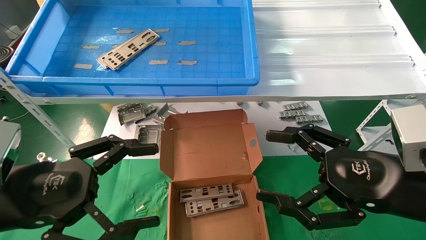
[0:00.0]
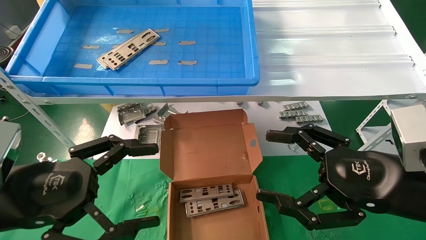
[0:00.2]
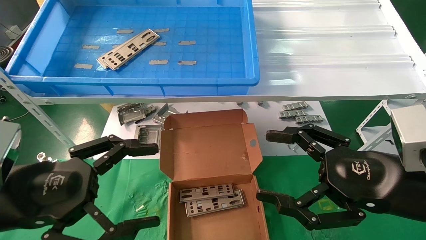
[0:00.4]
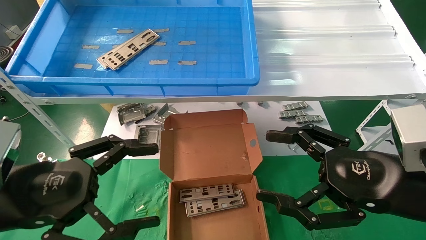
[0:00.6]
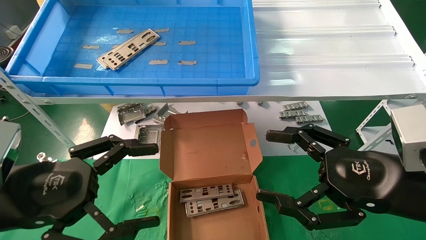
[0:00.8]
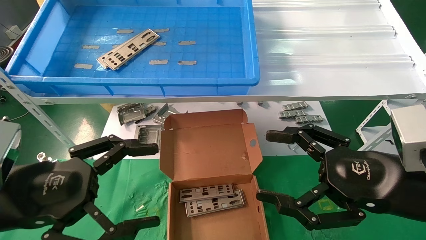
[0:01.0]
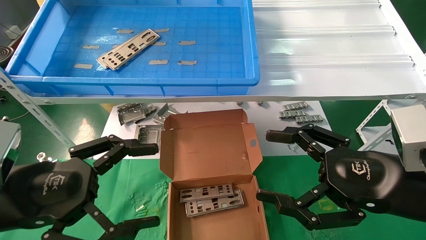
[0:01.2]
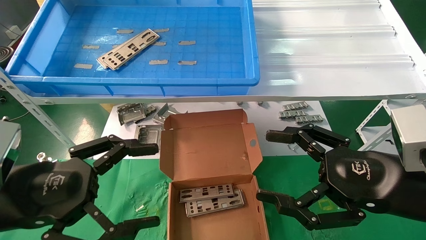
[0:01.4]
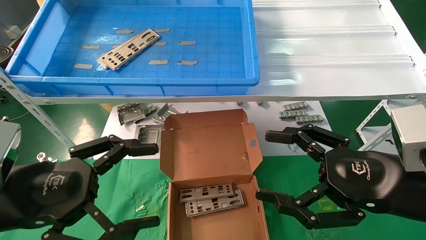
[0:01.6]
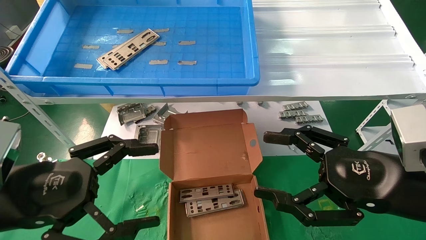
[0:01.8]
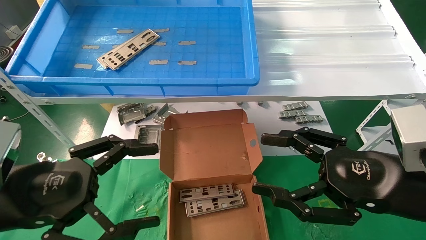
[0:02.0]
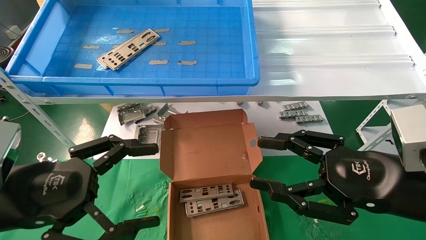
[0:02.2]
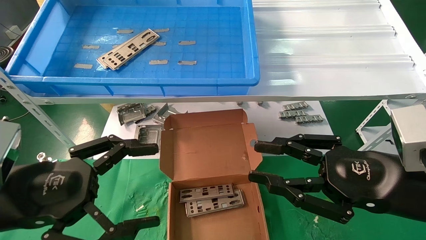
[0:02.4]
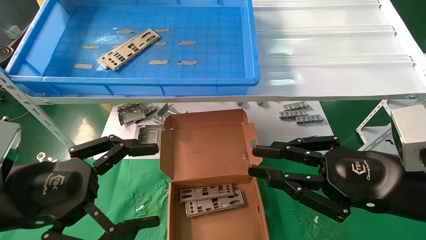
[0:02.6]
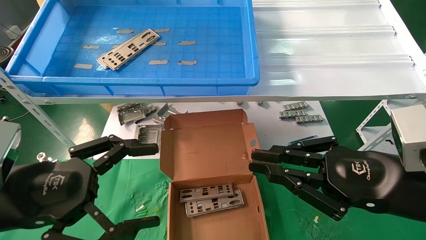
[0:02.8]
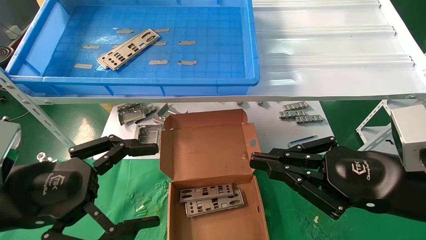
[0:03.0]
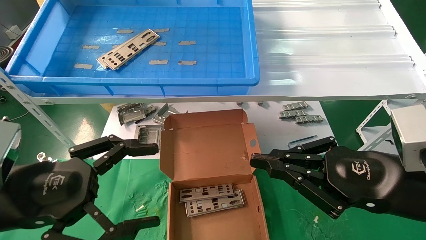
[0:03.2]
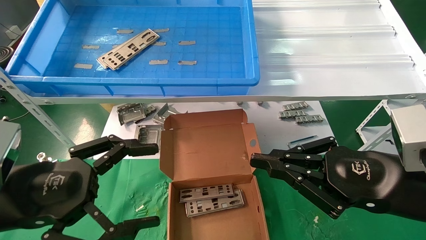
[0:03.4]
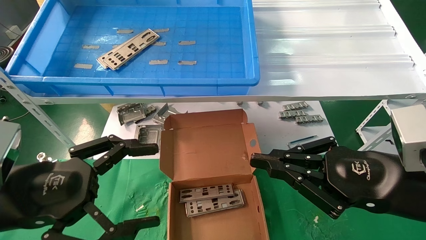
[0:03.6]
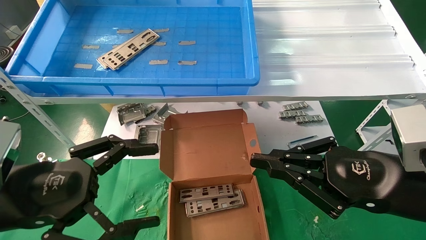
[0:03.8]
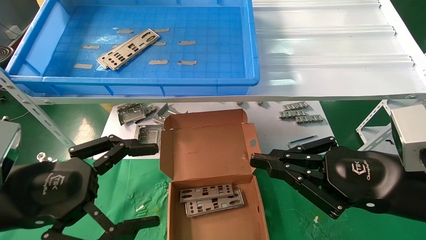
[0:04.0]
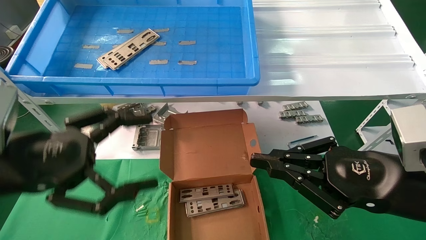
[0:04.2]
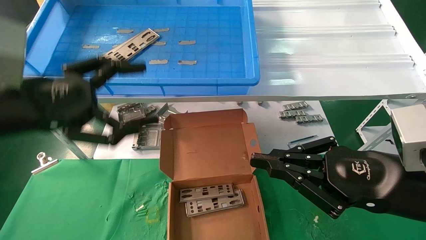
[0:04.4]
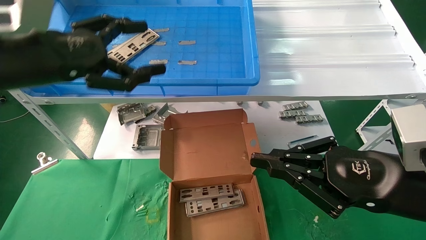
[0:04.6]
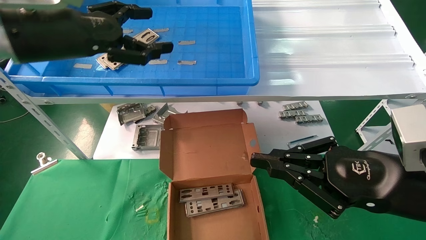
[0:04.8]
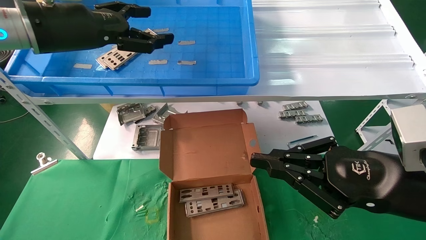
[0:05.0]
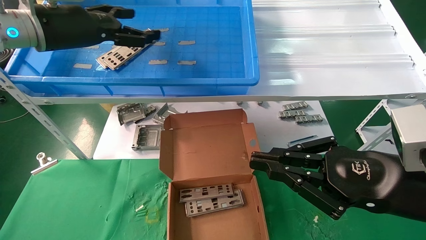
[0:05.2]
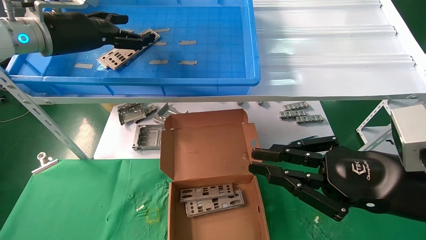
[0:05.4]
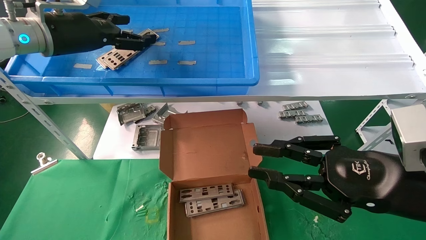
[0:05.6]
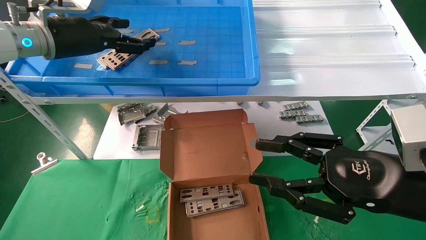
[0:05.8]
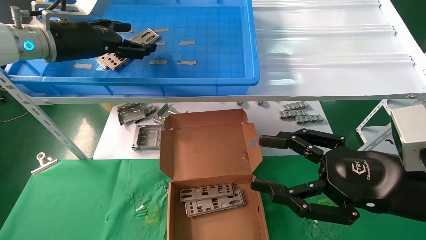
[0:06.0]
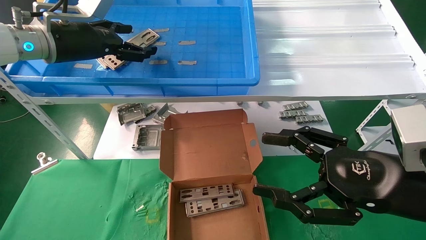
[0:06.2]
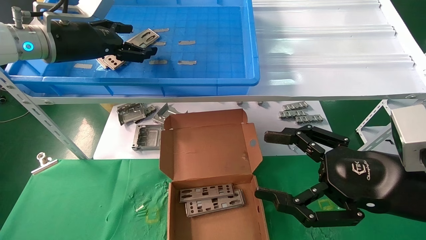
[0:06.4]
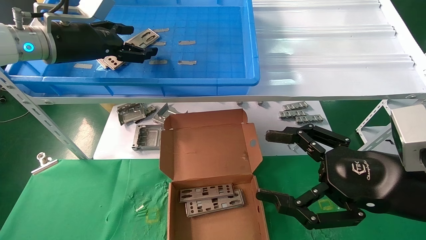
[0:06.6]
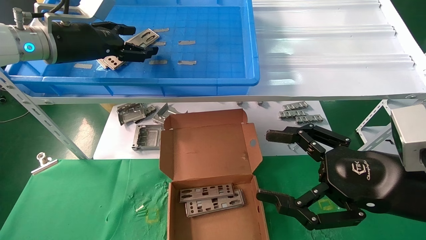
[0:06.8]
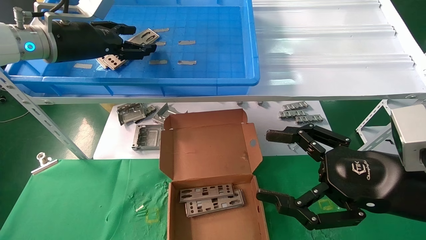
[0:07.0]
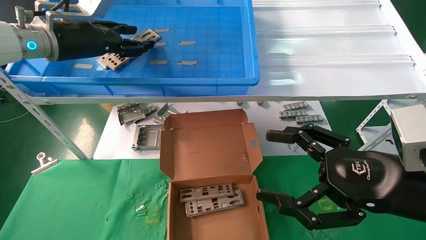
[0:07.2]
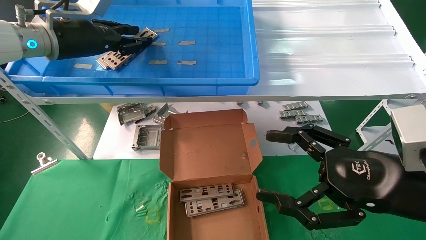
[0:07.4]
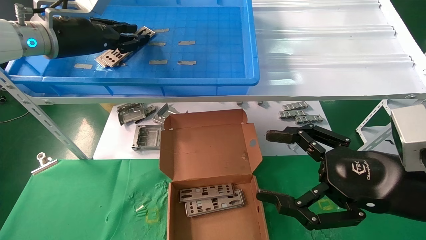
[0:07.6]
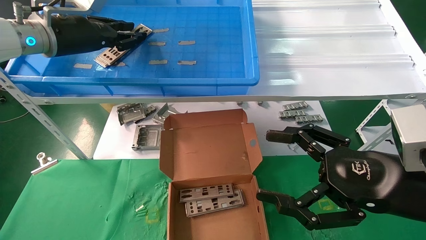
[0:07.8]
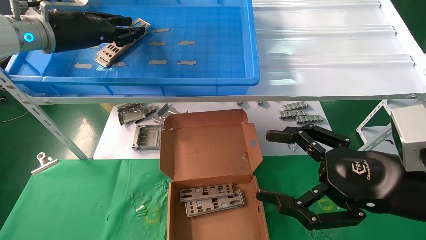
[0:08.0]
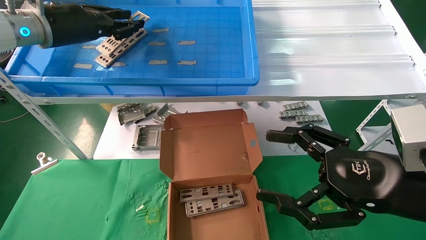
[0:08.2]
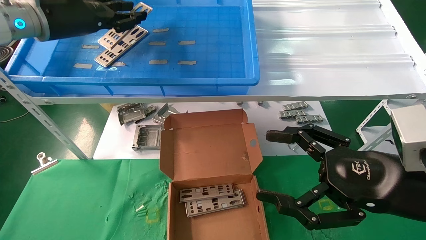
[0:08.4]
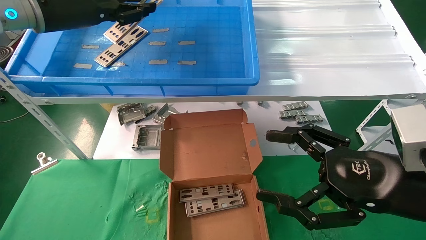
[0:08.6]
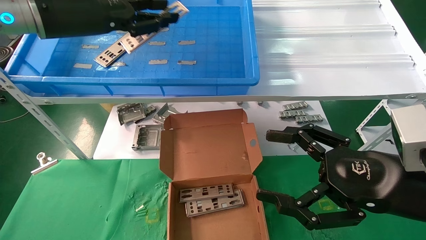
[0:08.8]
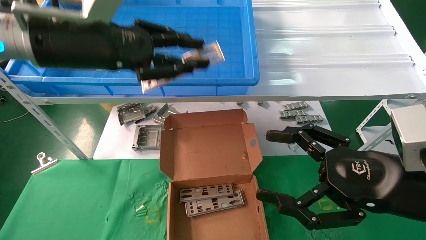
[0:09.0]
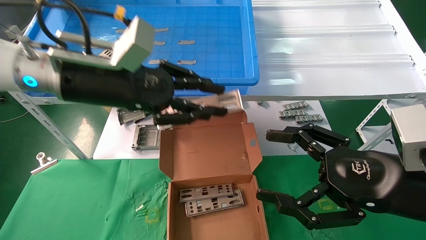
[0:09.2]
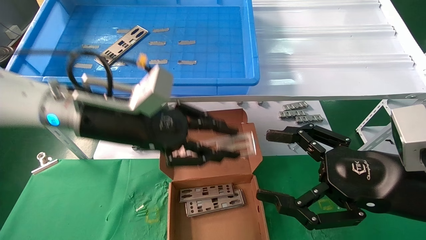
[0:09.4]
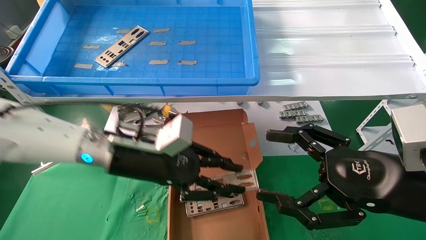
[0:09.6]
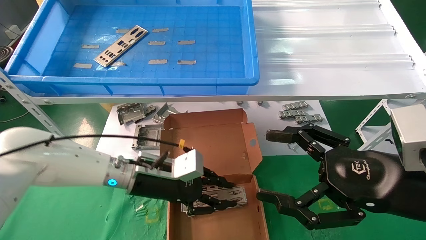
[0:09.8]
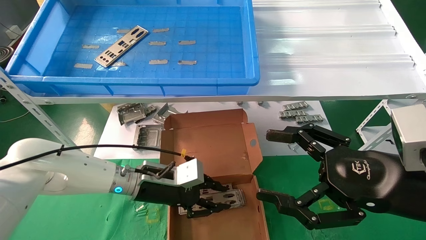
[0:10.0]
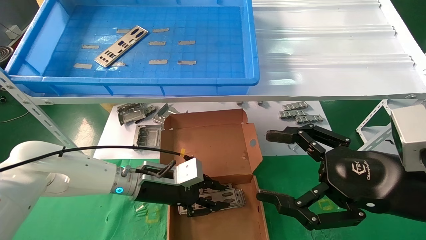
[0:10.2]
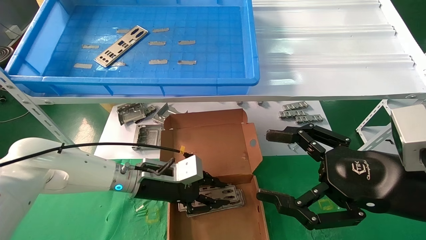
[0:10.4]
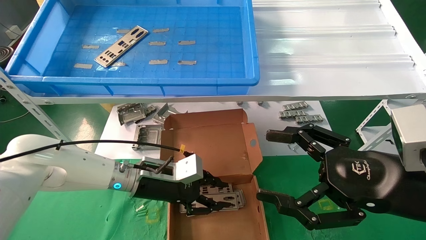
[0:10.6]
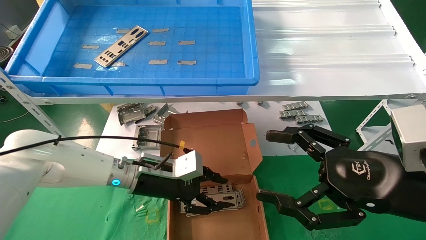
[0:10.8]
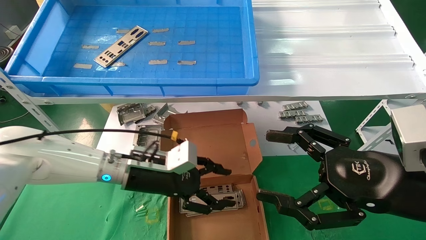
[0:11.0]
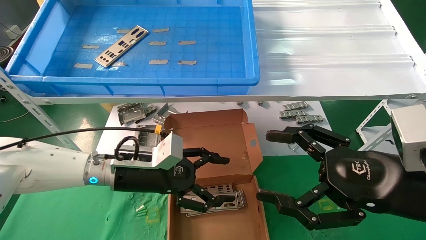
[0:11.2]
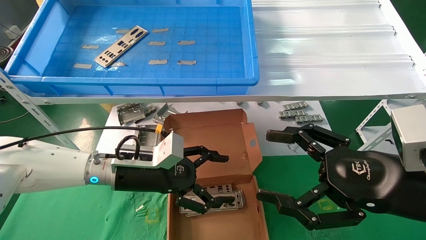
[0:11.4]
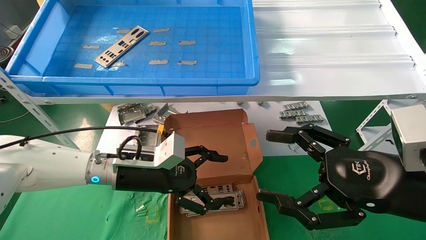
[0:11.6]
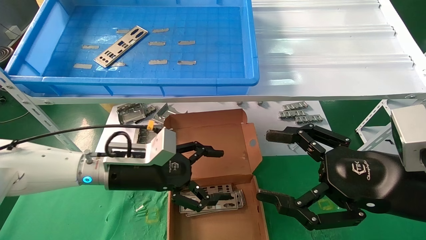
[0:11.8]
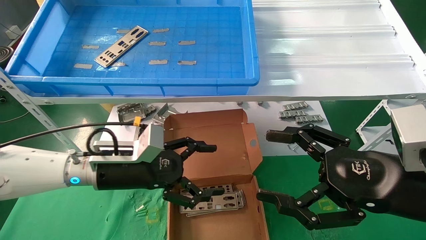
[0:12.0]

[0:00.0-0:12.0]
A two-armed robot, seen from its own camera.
Task of the whole recording: pick up the parts on the tray and put them in the cardboard box.
Step, 0:04.4 to 0:07.6: Pick up the IO bracket from the container box.
Step, 0:07.8 to 0:10.6: Place the IO bracket into the ingredient slot.
0:00.0 to 0:01.6: Both grippers stay put.
0:01.6 to 0:03.0: The right gripper closes.
0:03.0 to 0:04.4: The left gripper is displaced upward and forward by about 10 cm.
0:04.4 to 0:06.0: The left gripper is displaced forward and upward by about 20 cm, while the right gripper opens up.
0:06.0 to 0:07.6: The right gripper opens its fingers, while the left gripper closes its fingers.
0:07.6 to 0:09.0: The left gripper heads backward and to the right, covering about 10 cm.
0:09.0 to 0:10.4: The left gripper moves downward, about 25 cm.
0:10.4 to 0:12.0: The left gripper changes place by roughly 10 cm, and opens its fingers.

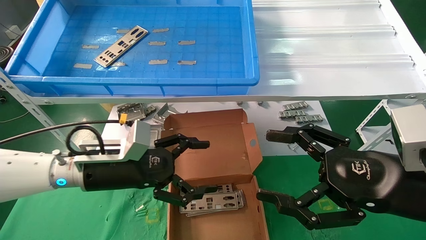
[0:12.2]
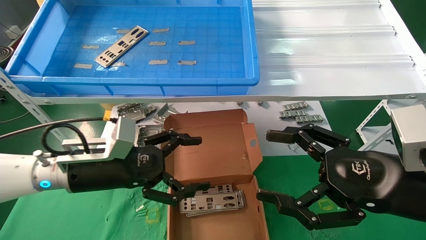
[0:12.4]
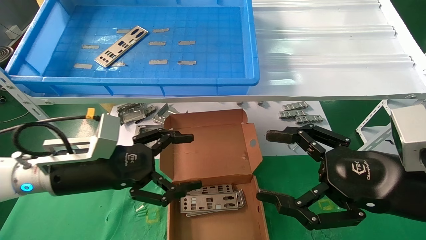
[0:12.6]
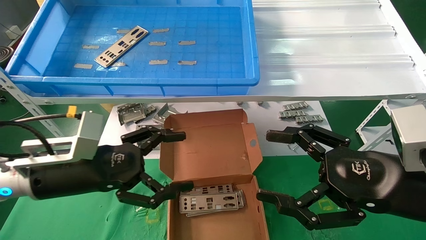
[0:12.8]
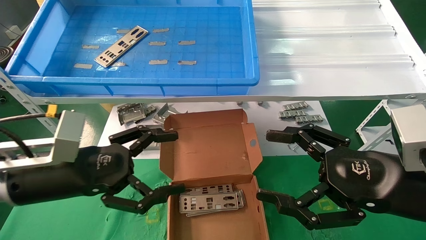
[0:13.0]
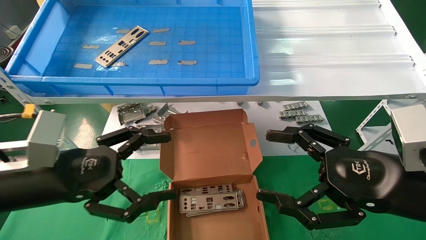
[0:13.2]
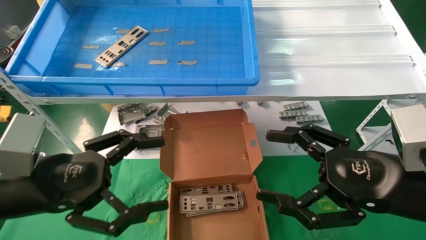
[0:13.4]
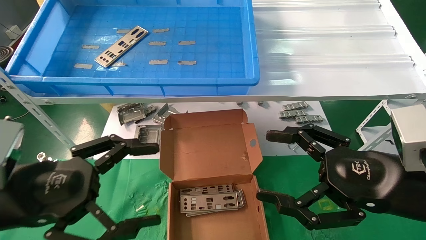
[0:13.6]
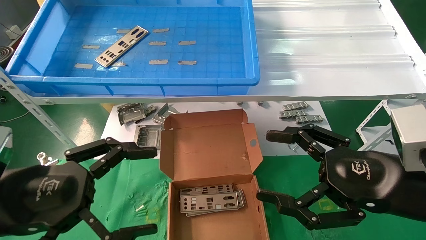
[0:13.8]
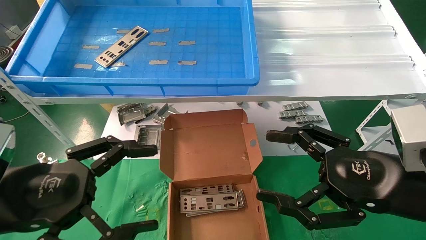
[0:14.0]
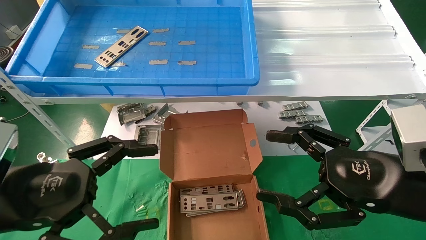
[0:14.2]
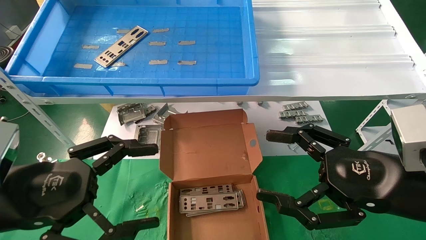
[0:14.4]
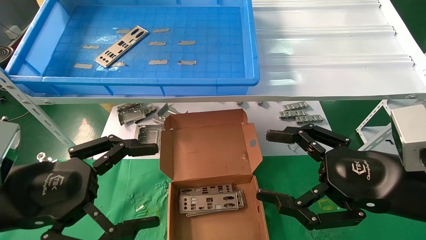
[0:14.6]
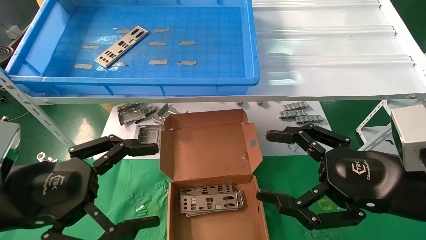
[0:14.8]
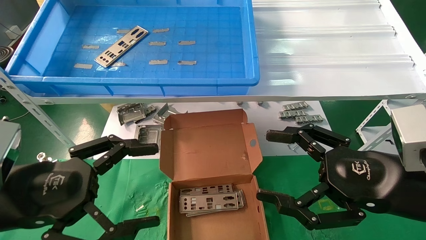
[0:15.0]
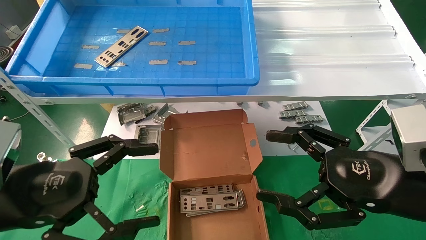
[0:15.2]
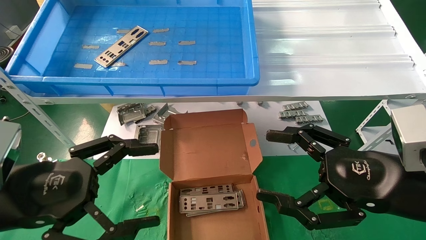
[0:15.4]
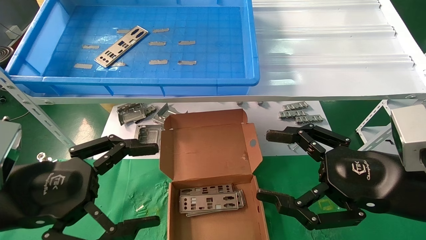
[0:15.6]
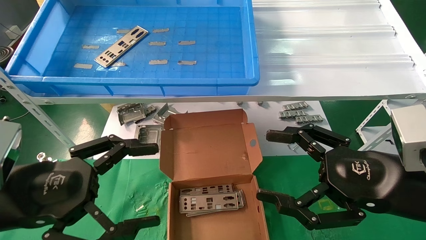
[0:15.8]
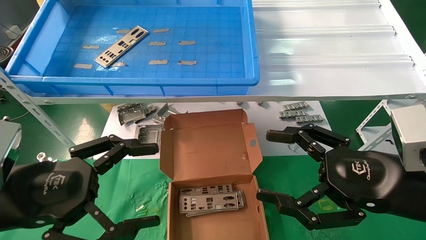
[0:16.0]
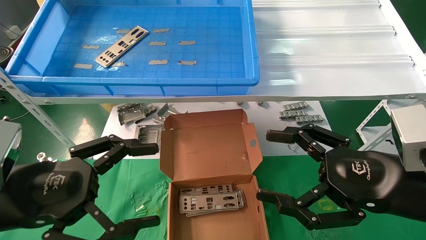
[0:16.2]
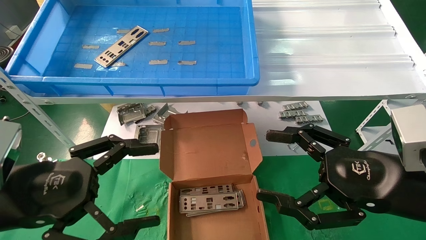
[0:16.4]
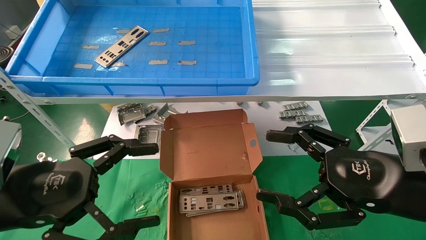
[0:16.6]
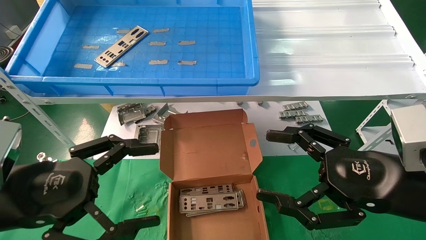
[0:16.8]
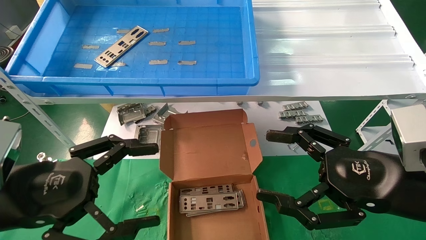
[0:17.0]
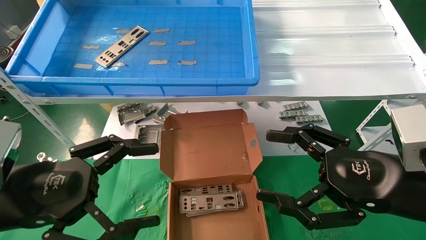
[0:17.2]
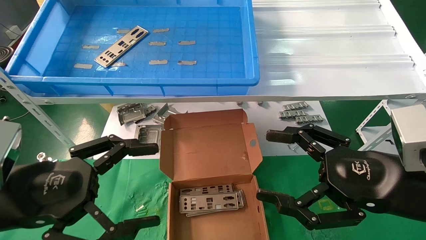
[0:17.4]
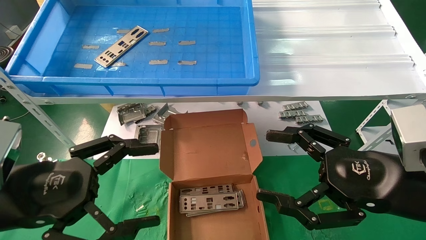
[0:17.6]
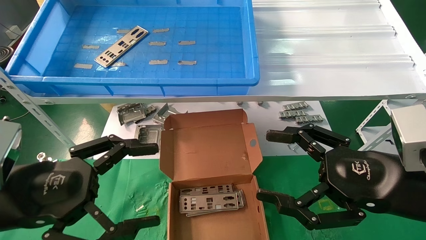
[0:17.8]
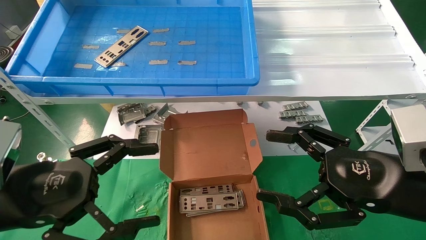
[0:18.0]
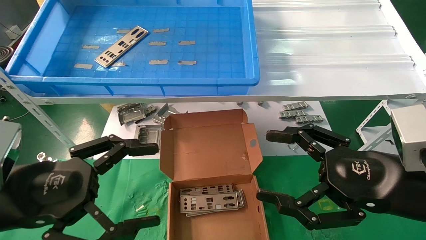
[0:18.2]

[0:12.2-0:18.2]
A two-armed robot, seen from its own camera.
Task of the whole recording: pick up the parts on the tray and put them in the cardboard box.
0:12.2 to 0:13.8: The left gripper is displaced backward and to the left by approximately 15 cm.
0:13.8 to 0:18.2: Both grippers stay put.
